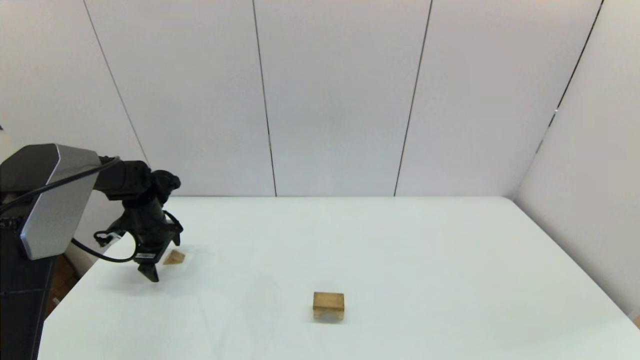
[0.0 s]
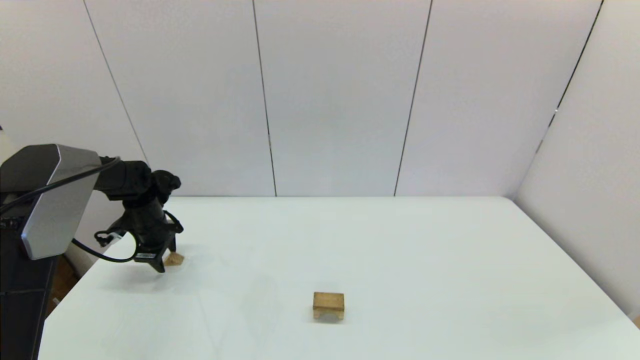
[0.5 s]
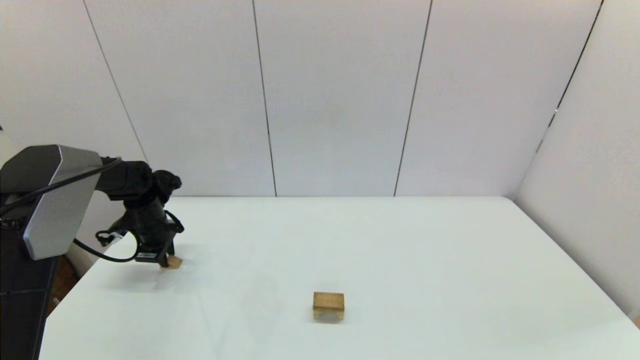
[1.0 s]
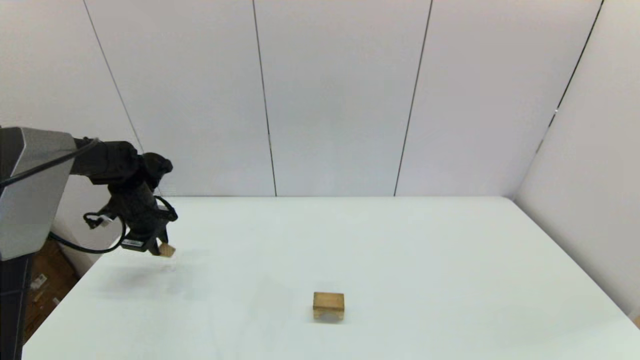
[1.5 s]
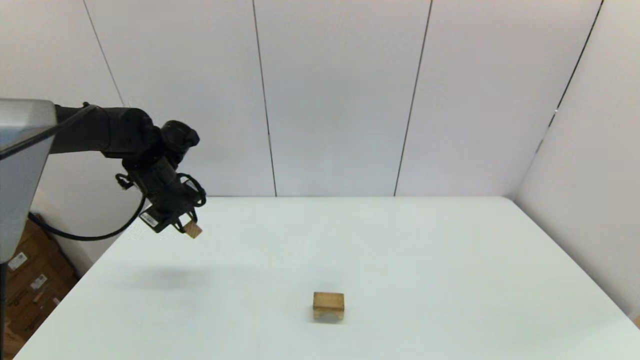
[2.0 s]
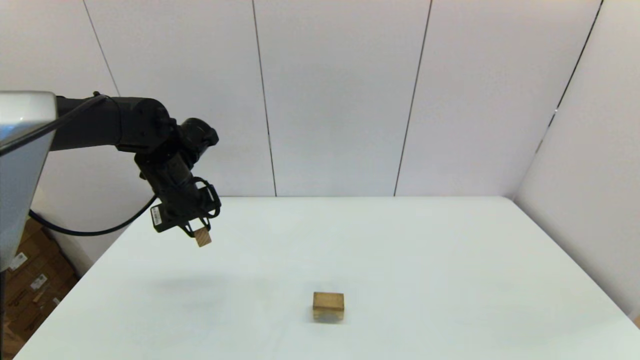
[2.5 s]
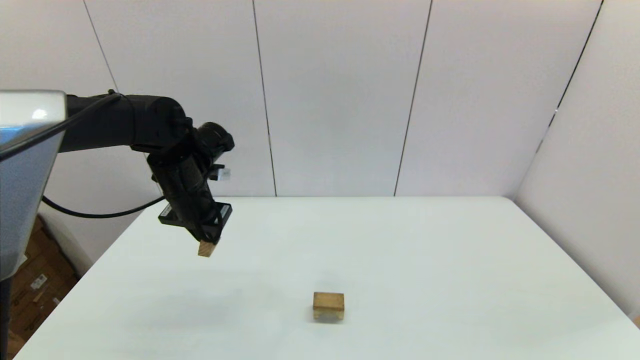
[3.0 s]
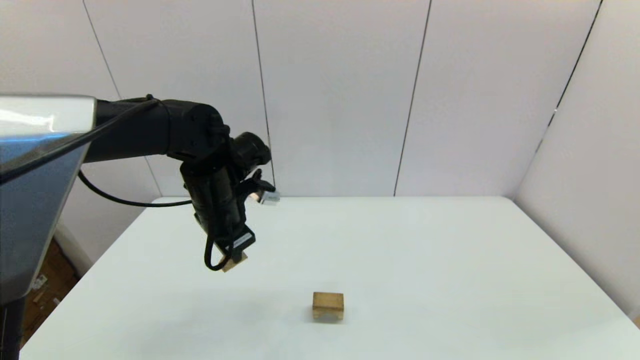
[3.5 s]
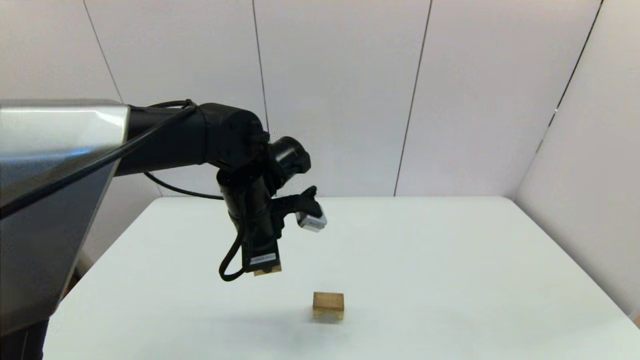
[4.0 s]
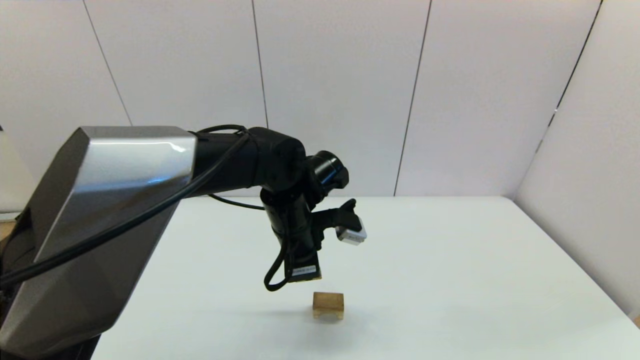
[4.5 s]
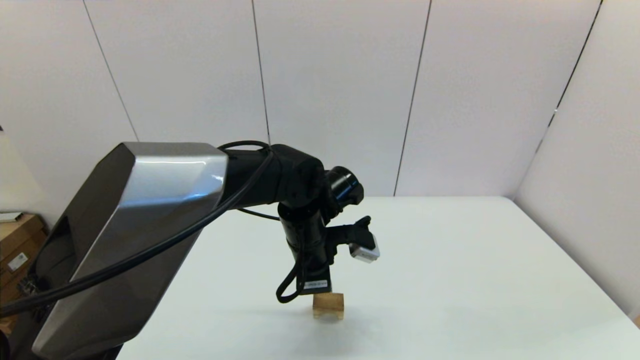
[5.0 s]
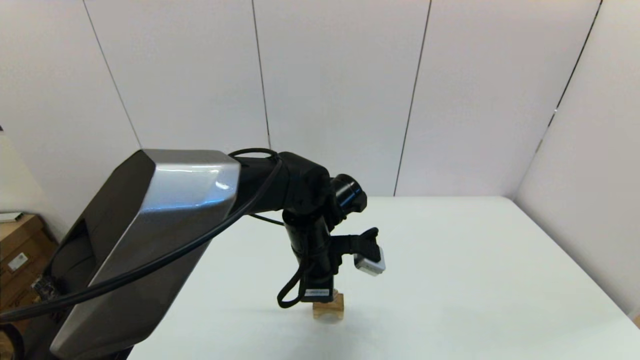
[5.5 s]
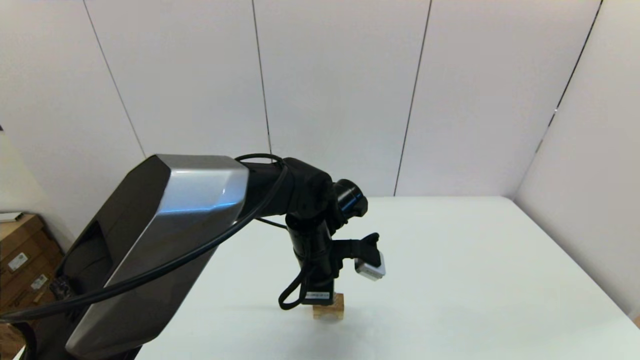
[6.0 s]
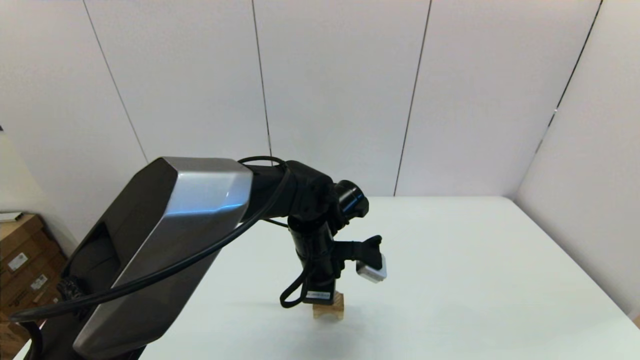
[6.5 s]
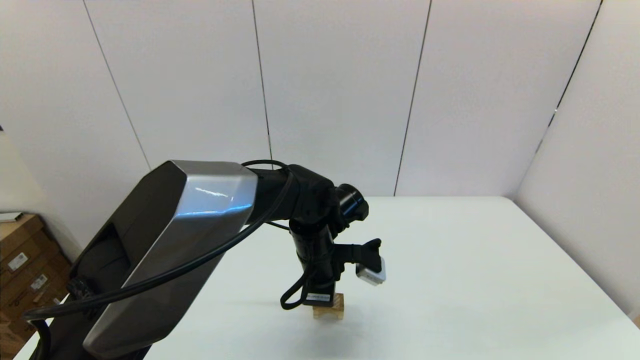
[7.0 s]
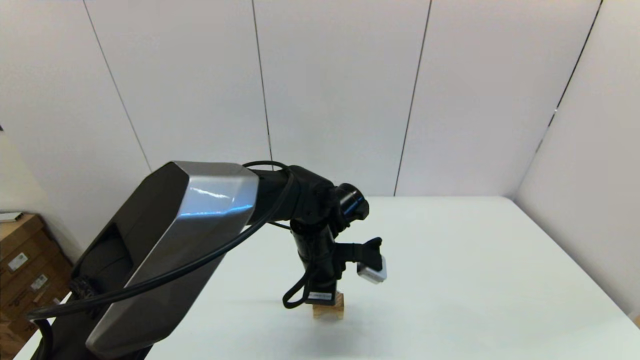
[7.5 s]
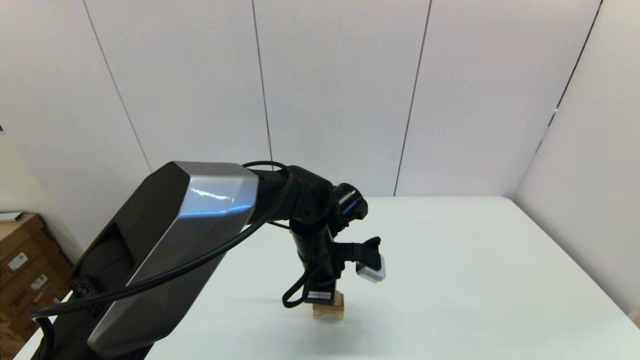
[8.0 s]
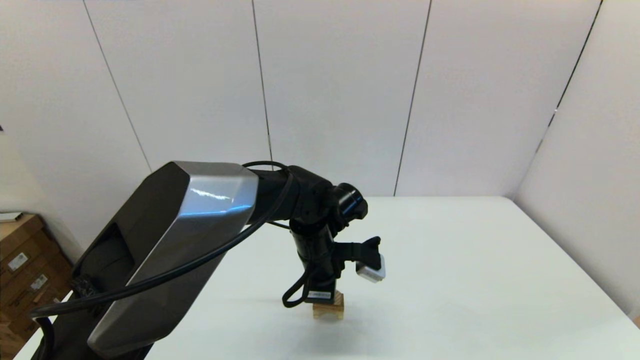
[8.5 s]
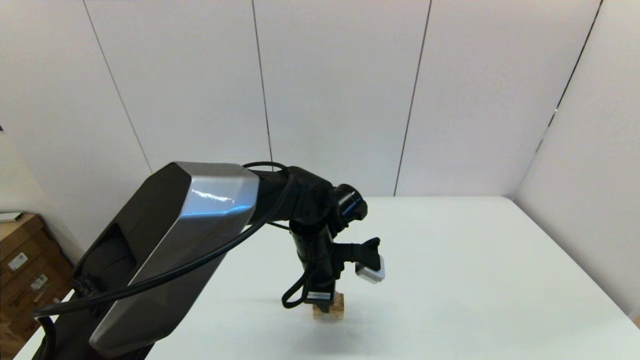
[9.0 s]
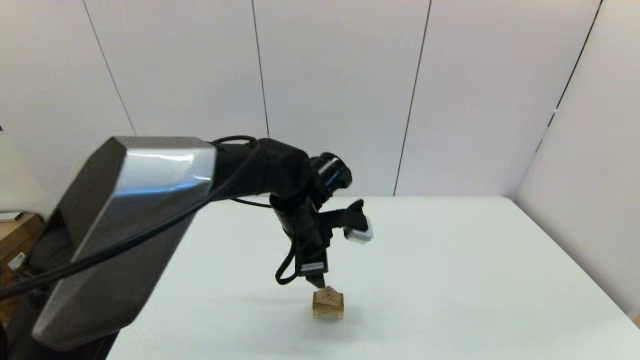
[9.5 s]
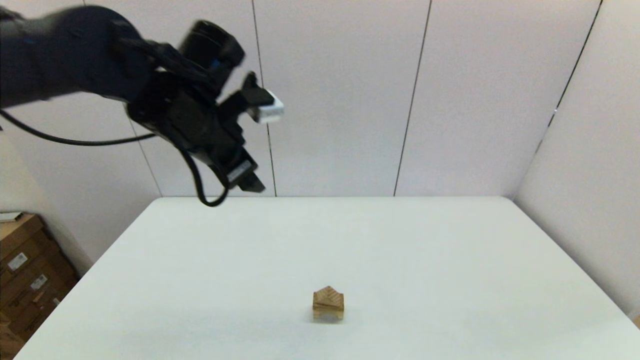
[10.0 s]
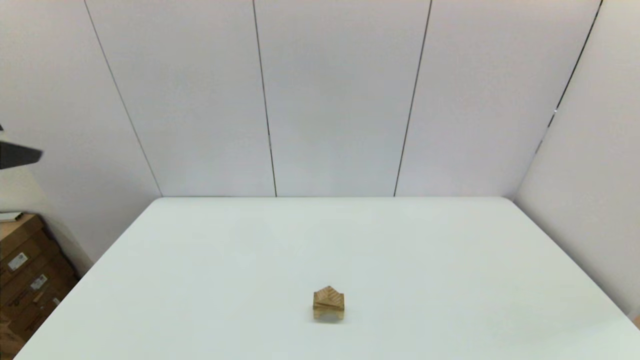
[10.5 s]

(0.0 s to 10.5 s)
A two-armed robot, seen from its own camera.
Task of the whole recording: place the arched building blocks in the center of the table, set up the rectangular building blocks, and then set up the triangular building blocks.
0.0 s - 2.0 s: The left gripper goes approximately 15 cm upward and to the right, and closes.
2.0 s - 4.0 s: The left gripper travels to the right and backward by approximately 20 cm.
4.0 s - 6.5 s: The left gripper shifts some 10 cm to the right and downward.
6.5 s - 8.5 s: Both grippers stay about where they are.
8.5 s - 10.5 s: The left gripper moves to the left, upward and backward, some 50 cm, and opens.

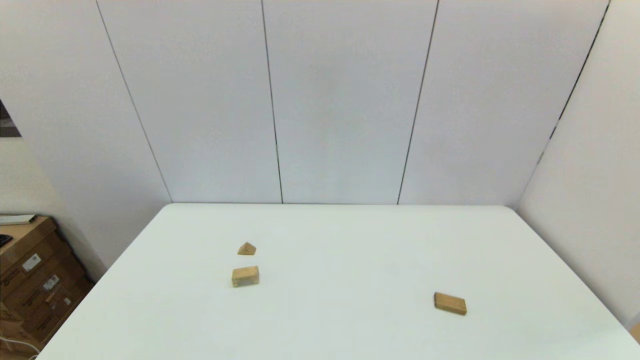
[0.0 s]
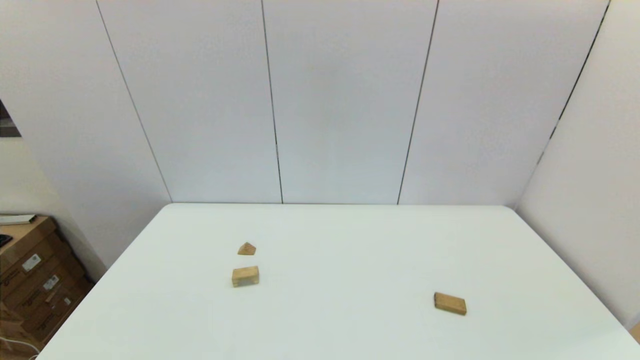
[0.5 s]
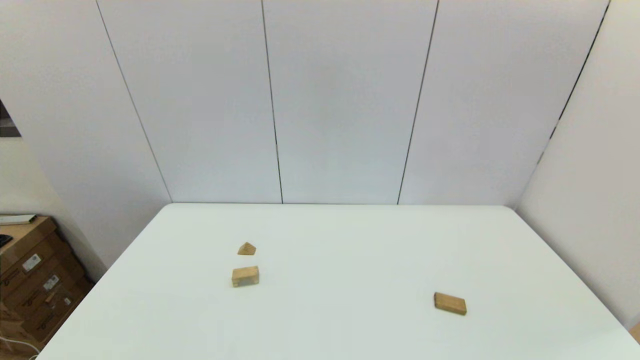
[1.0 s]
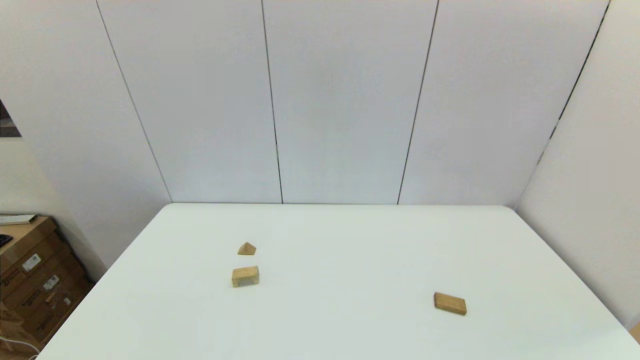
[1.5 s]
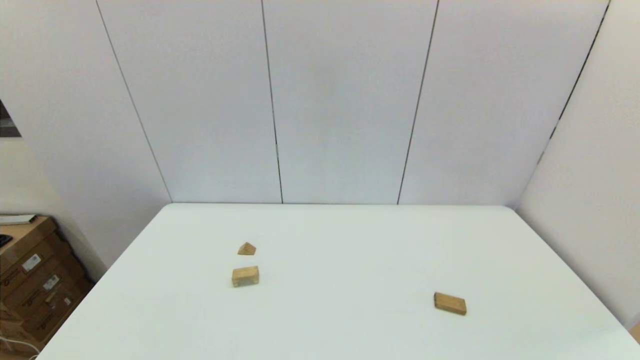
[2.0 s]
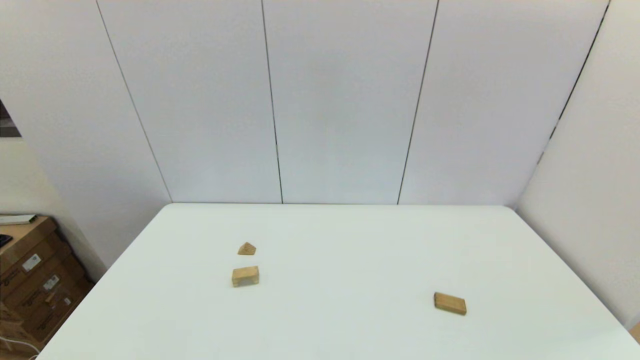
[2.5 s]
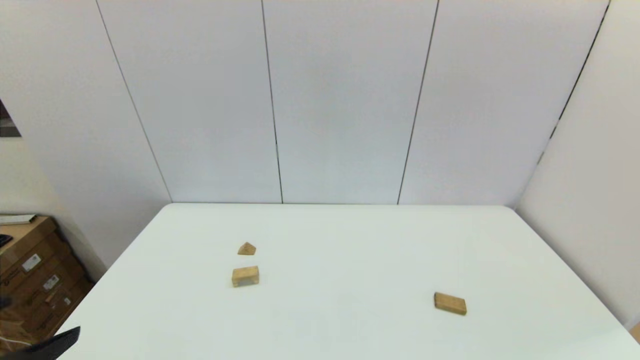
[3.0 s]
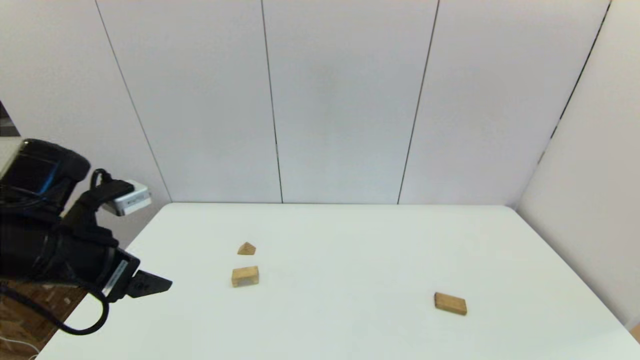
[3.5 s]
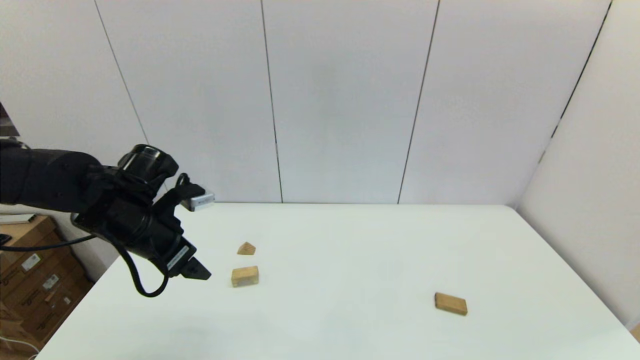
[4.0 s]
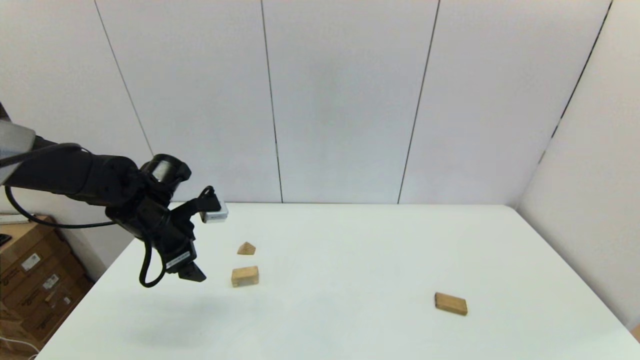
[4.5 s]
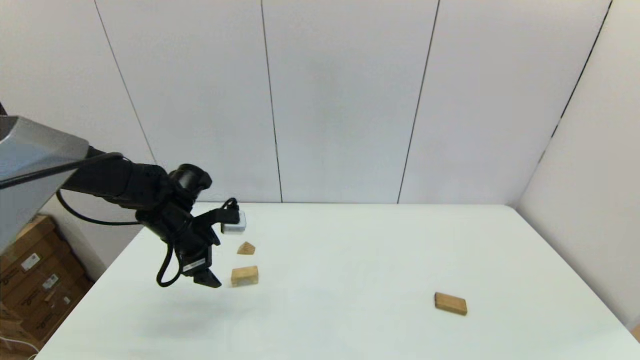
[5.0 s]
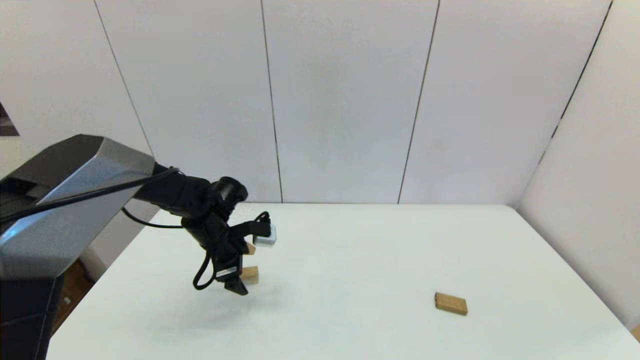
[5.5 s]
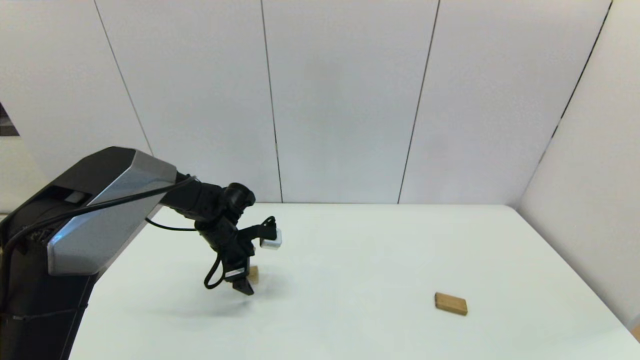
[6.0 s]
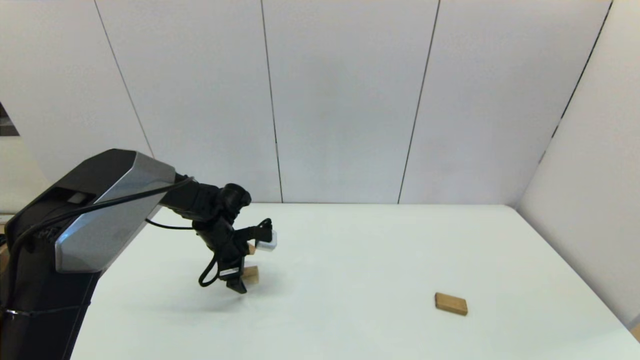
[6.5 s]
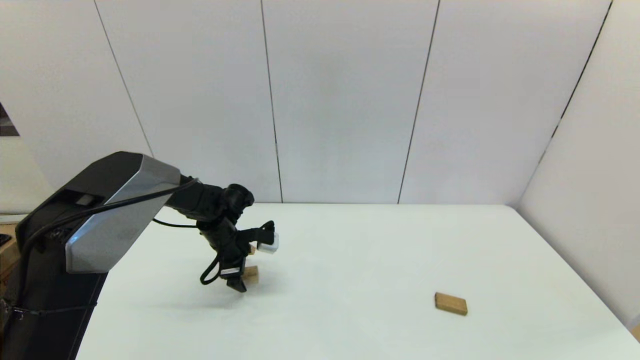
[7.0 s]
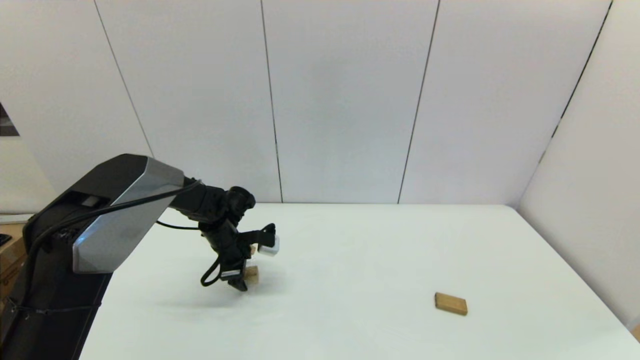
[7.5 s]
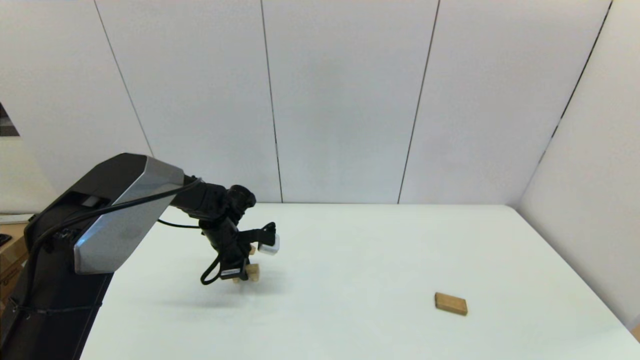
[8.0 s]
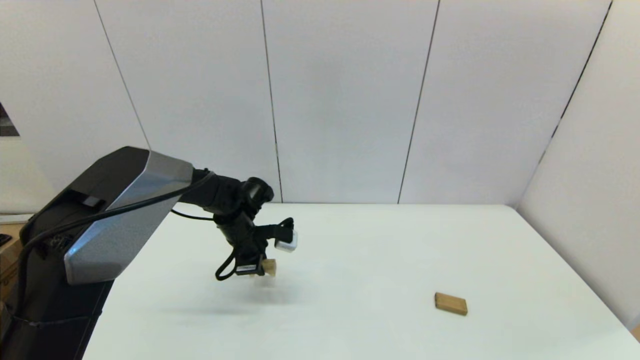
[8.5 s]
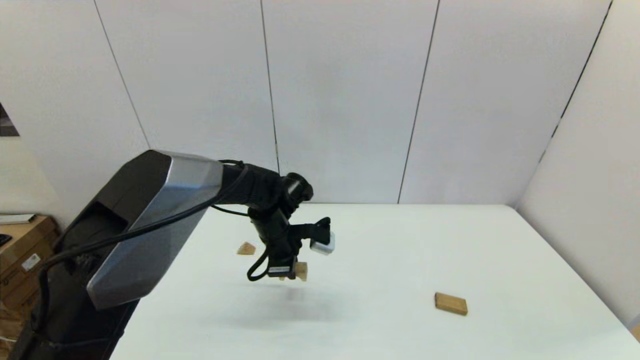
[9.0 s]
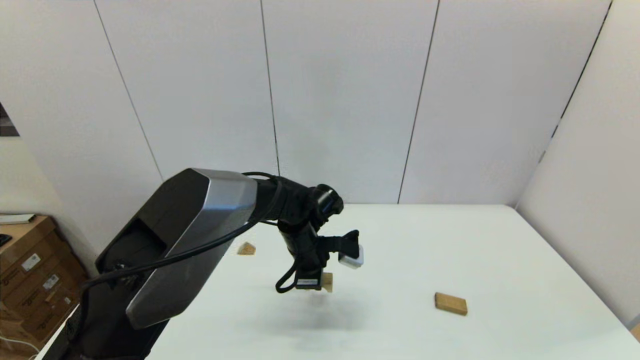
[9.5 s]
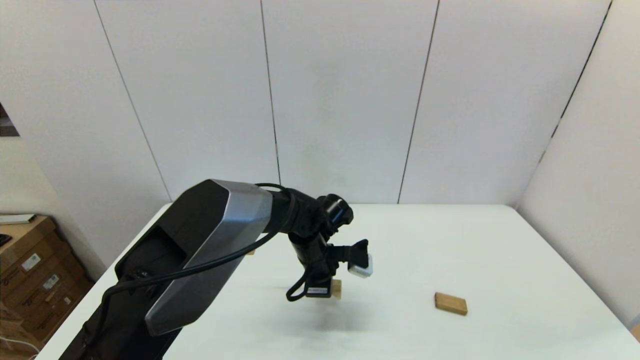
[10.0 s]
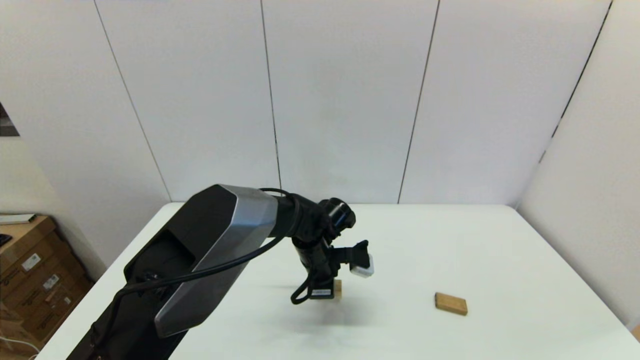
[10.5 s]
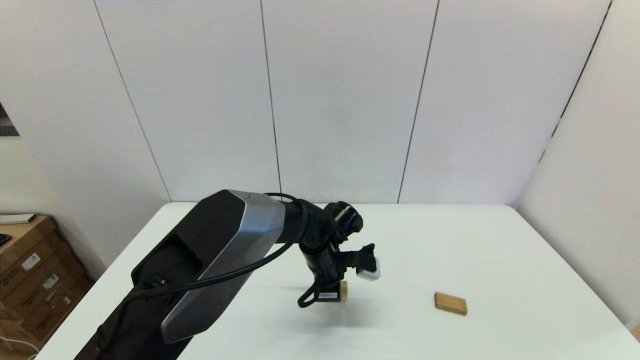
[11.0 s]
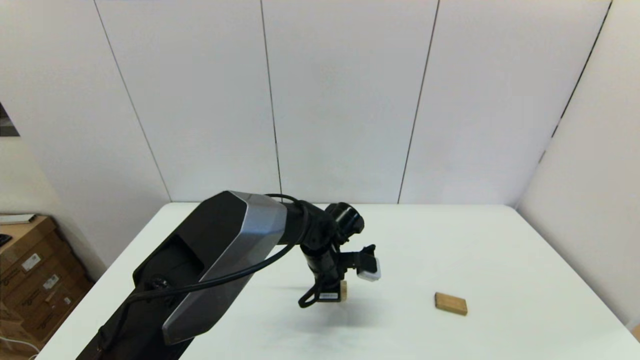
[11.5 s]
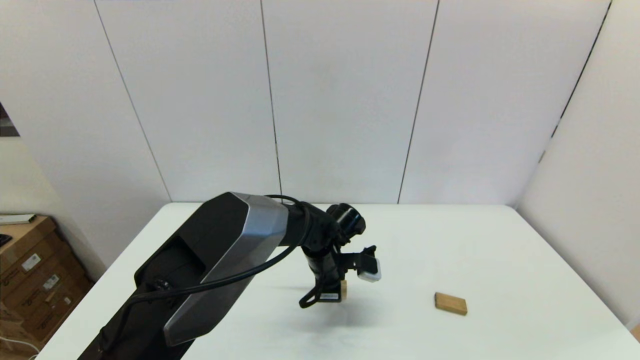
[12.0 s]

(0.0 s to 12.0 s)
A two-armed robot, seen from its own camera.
Task of the whole recording: place the arched building blocks in the center of the table, set up the rectangular building blocks, and then set up the triangular building blocks.
Step, 3.0 s - 7.5 s: Grasp the arch-shaped block with the left gripper.
0.0 s - 2.0 s: Neither gripper changes place.
2.0 s - 4.0 s: The left gripper travels forward by about 30 cm.
4.0 s - 6.0 s: The left gripper heads downward, forward and to the right, covering some 20 cm.
6.0 s - 8.0 s: The left gripper closes.
8.0 s - 10.0 s: The left gripper moves to the right, some 20 cm.
10.0 s - 12.0 s: The grippers move only a little.
